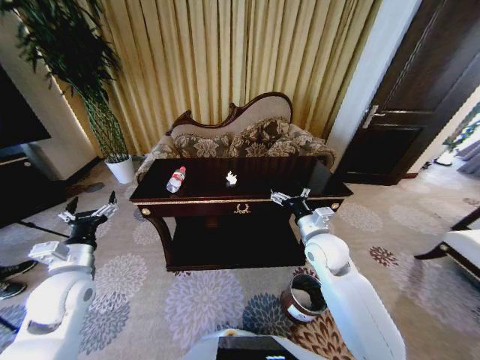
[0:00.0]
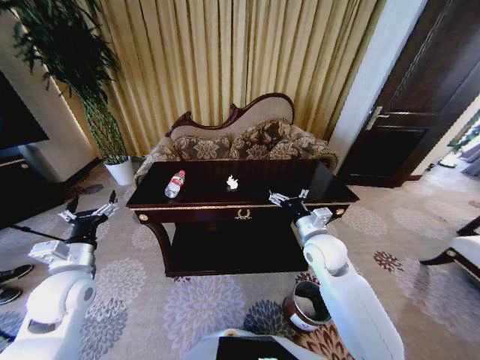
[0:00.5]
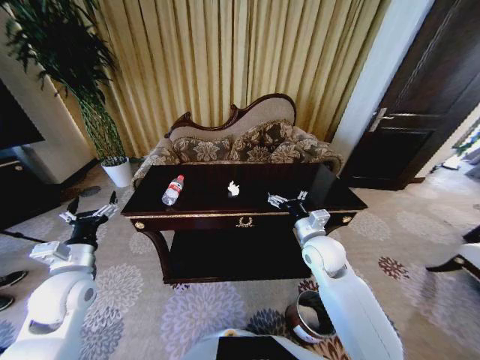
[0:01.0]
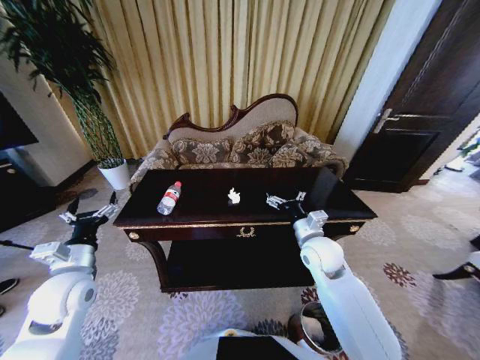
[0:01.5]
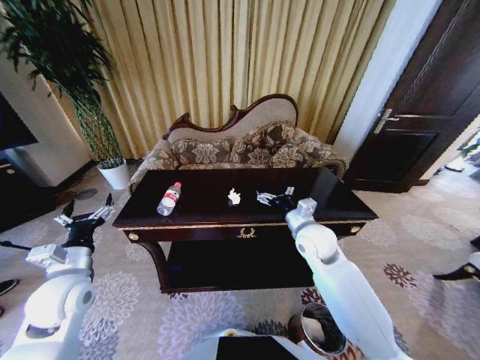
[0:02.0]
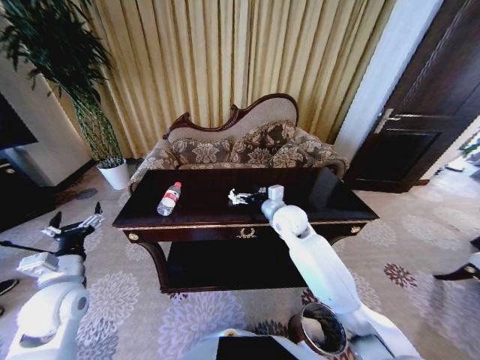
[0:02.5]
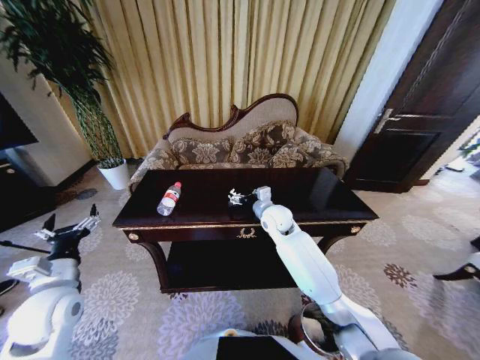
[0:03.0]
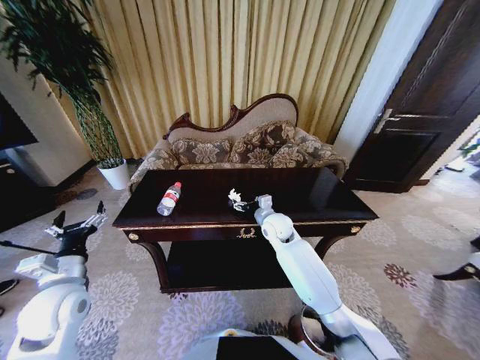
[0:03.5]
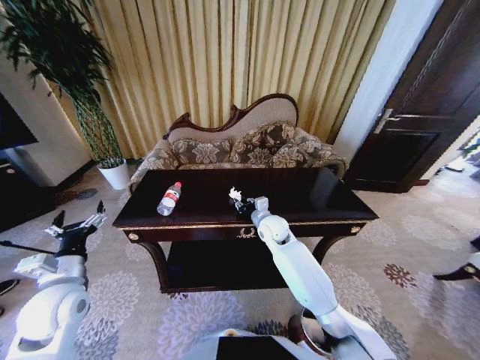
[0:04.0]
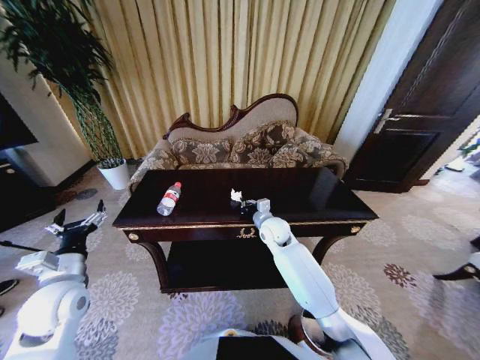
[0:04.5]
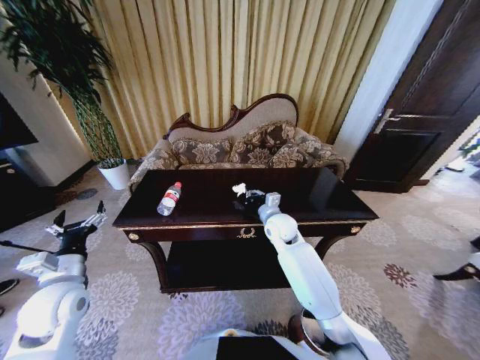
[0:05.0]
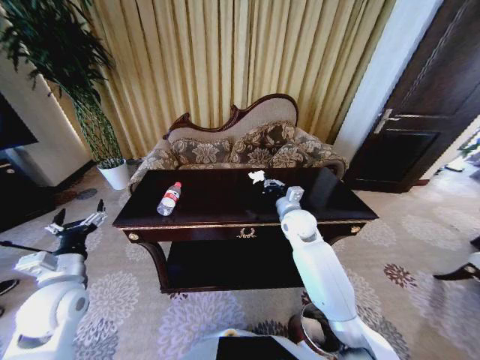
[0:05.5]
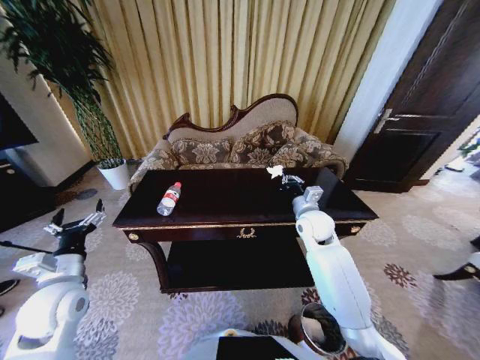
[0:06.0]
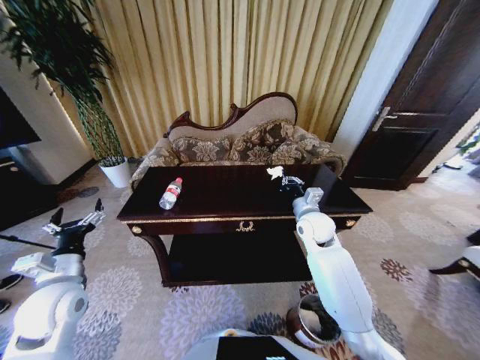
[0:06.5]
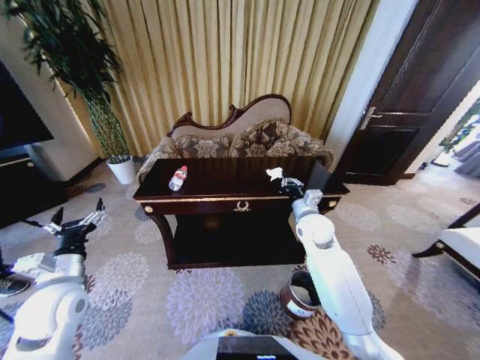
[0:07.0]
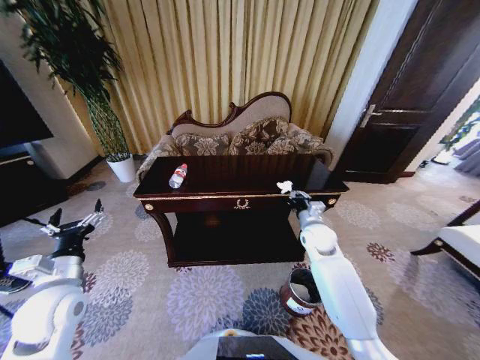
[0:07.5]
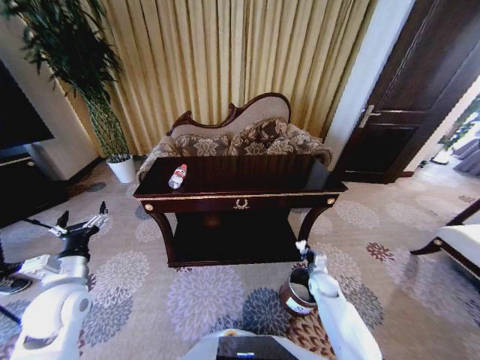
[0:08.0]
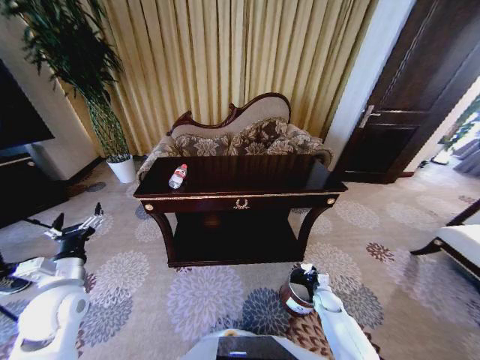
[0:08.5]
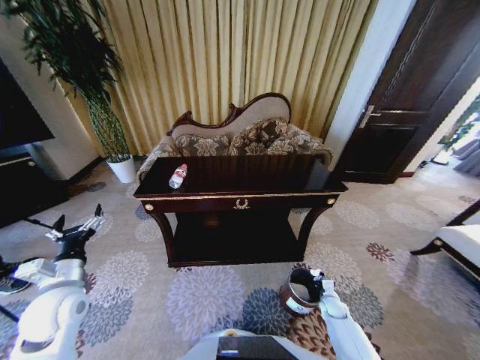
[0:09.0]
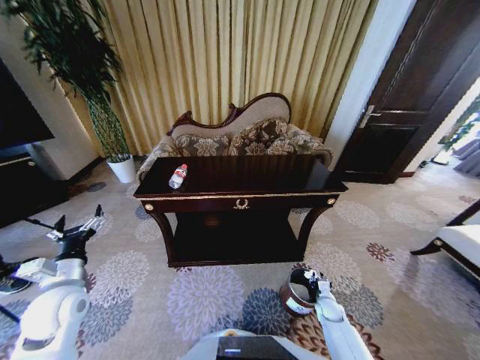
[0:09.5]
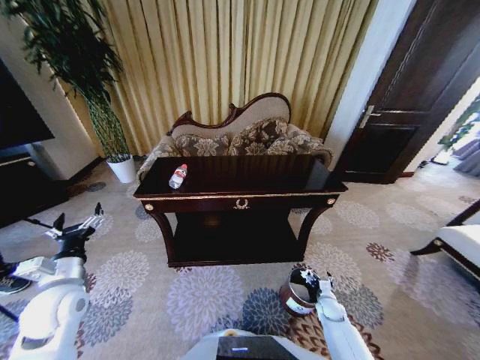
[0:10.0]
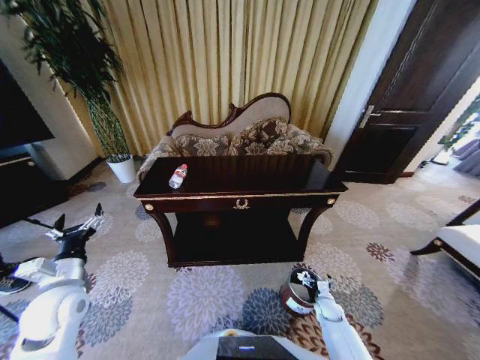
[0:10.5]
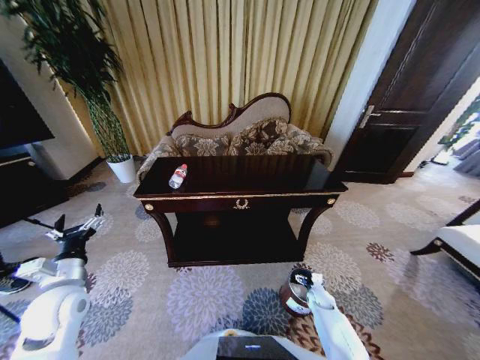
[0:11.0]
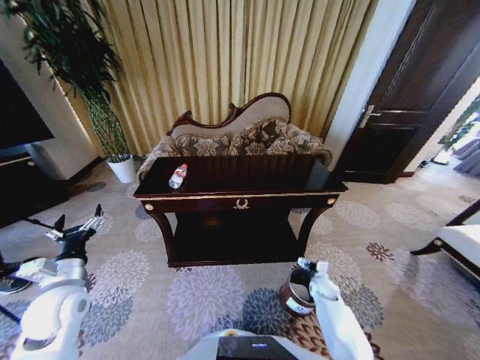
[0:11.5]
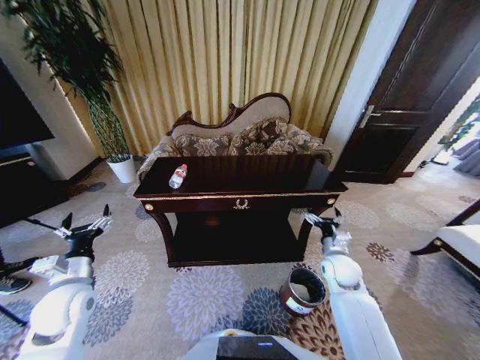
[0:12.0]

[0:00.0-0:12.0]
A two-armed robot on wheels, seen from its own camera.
Task of the whole recording: Move to the front of the table and place the trash on the table into the trash bin.
0:02.0 to 0:04.0: The right gripper moves forward, to the left and downward, approximately 15 cm, and closes up.
0:04.0 to 0:06.0: The right gripper shifts about 10 cm to the right and upward, and closes.
0:06.0 to 0:08.0: The right gripper heads downward and to the right, covering some 30 cm.
0:08.0 to 0:10.0: The right gripper heads downward and backward, covering some 10 cm, and opens up.
0:10.0 to 0:12.0: The right gripper goes roughly 25 cm upward.

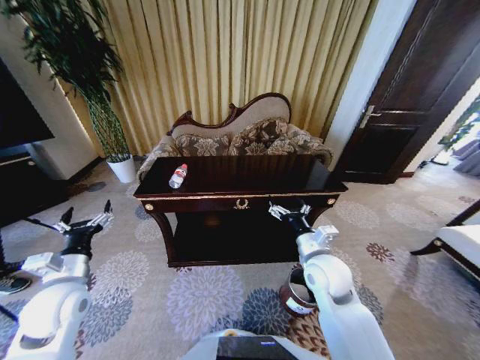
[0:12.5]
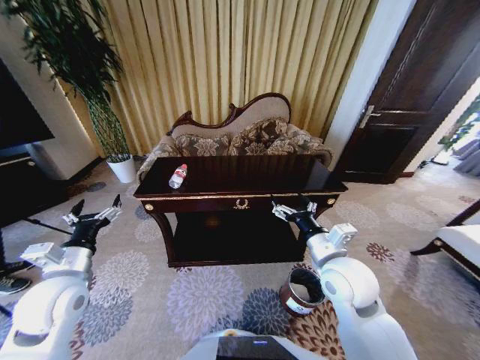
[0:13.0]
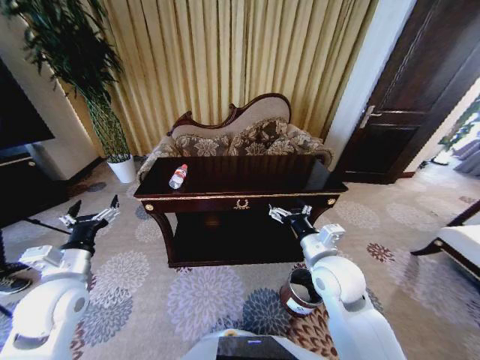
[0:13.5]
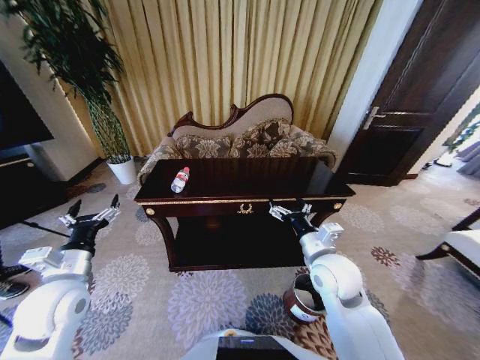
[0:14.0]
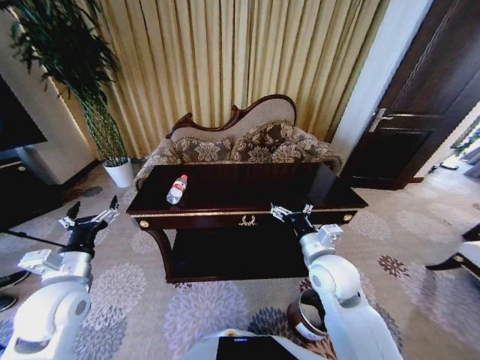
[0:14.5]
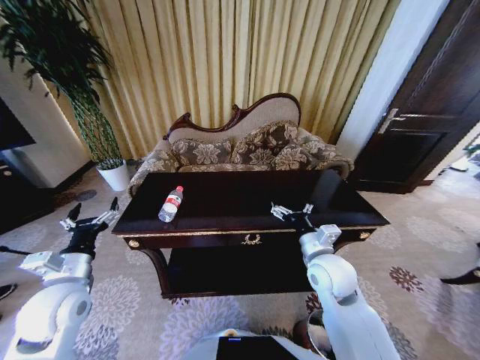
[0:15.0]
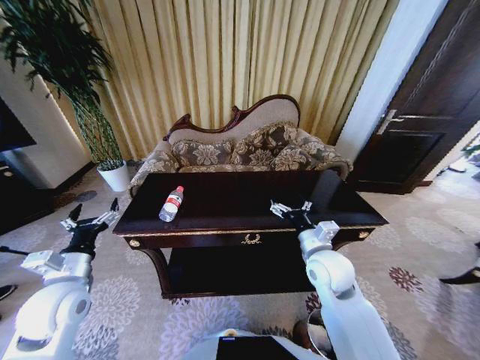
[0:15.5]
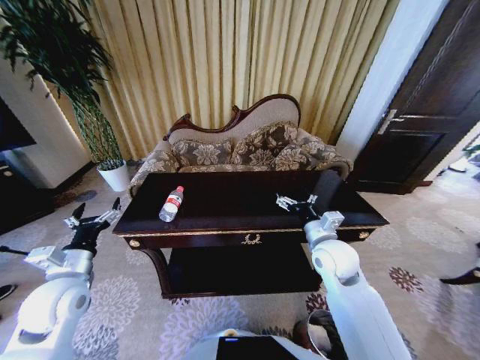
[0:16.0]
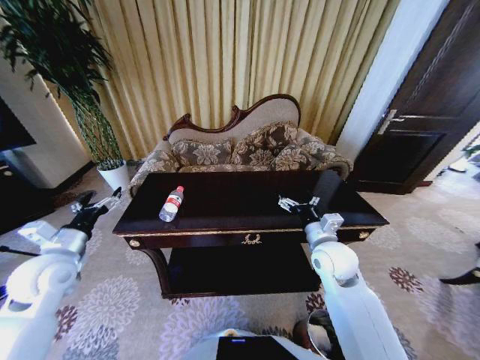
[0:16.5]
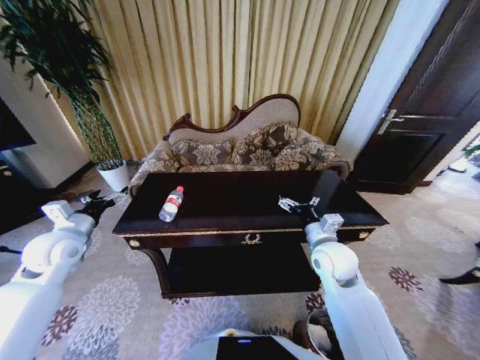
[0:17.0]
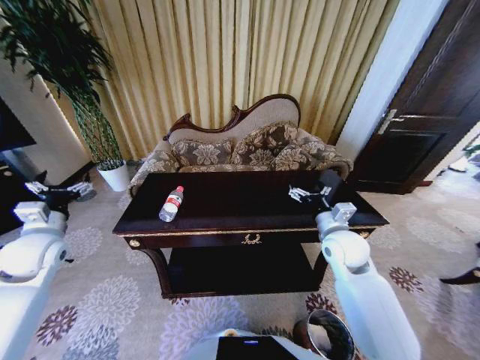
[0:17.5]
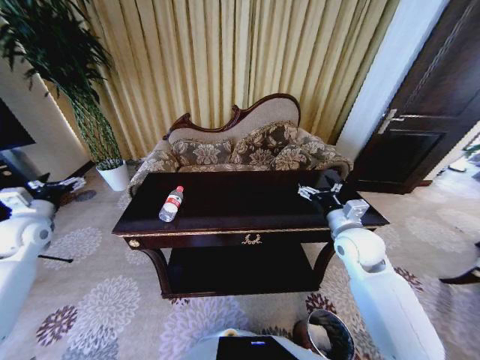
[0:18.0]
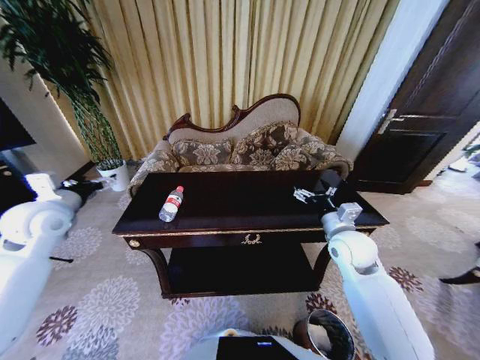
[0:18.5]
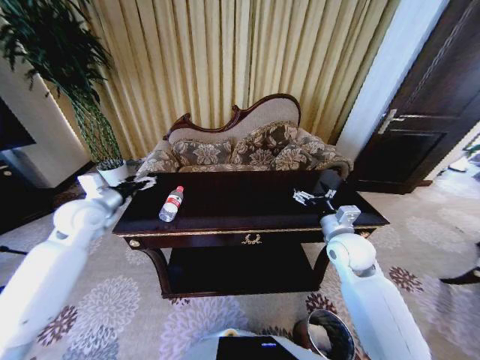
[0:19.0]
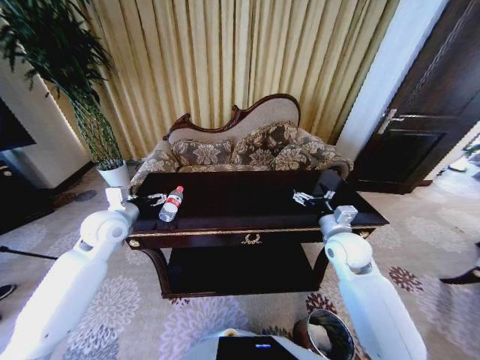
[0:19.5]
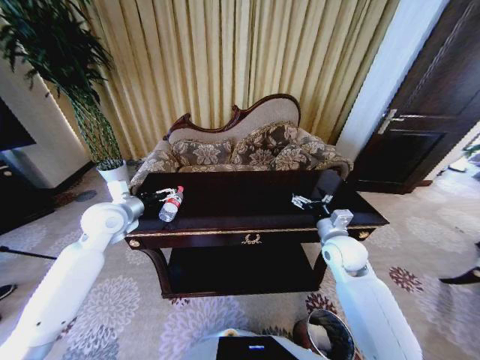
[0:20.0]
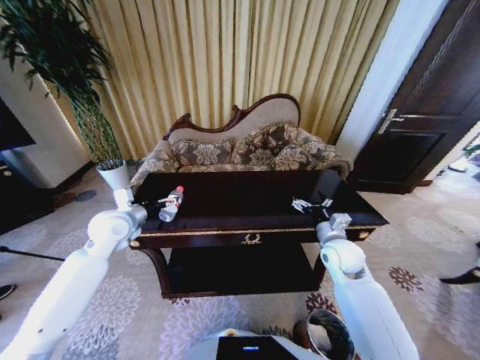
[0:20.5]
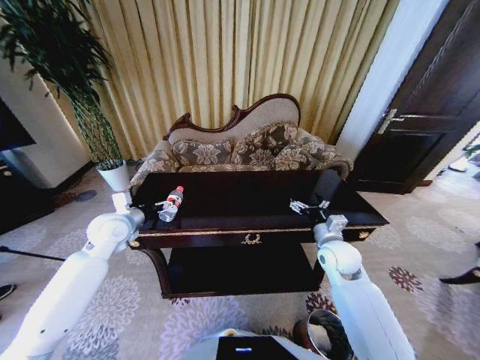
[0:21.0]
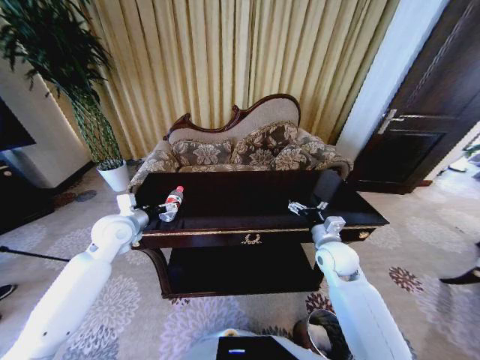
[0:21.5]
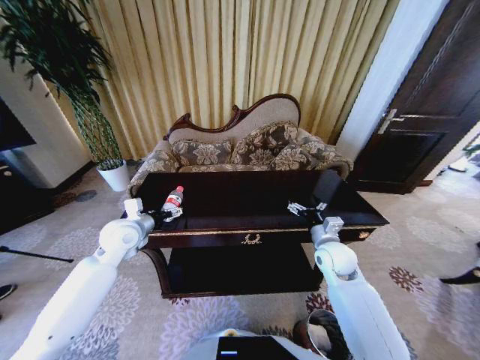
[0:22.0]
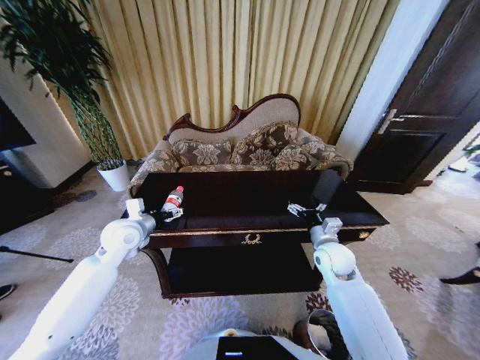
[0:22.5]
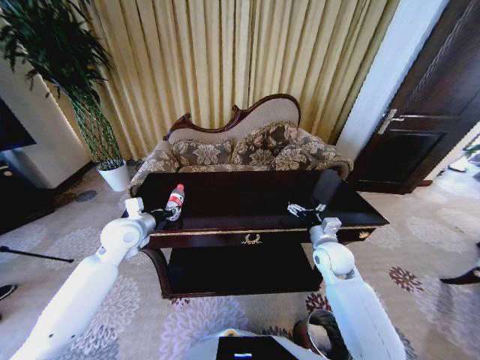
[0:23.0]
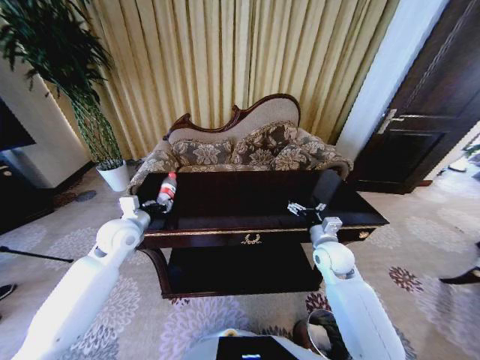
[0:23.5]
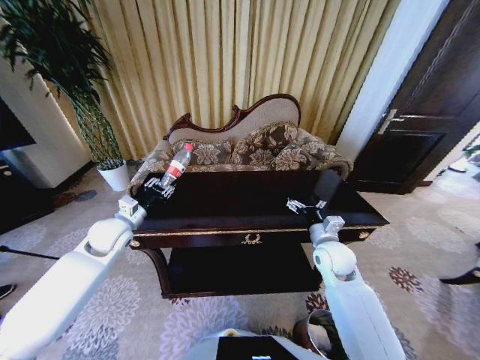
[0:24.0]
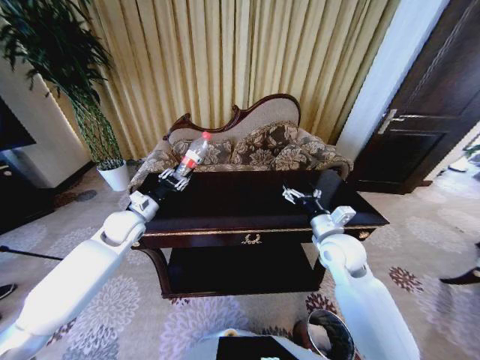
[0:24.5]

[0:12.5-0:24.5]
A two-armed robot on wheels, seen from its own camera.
Task of the whole recording: Move to the front of the table and place the trash on the table into the trash bin.
0:14.5 to 0:16.5: The left gripper shifts approximately 5 cm to the left and forward; the right gripper ends up some 5 cm from where it was.
0:16.5 to 0:18.5: The right gripper moves to the right, roughly 5 cm. The left gripper moves forward and upward, roughly 10 cm, and moves about 10 cm to the left and comes back.
0:18.5 to 0:20.5: The left gripper shifts roughly 15 cm to the right and downward.
0:20.5 to 0:22.5: There are only small adjustments of the grippers.
0:22.5 to 0:24.5: The left gripper closes its fingers, while the right gripper shifts about 5 cm upward.

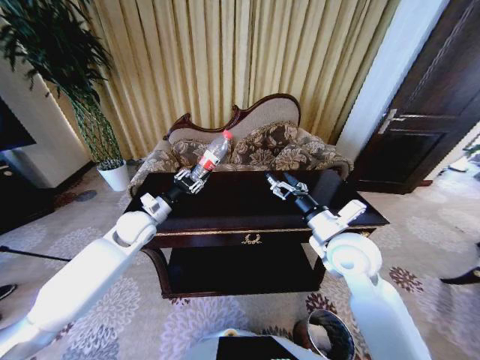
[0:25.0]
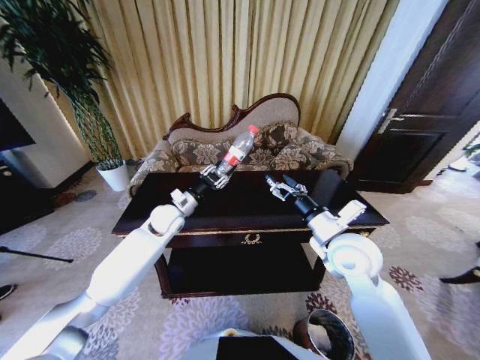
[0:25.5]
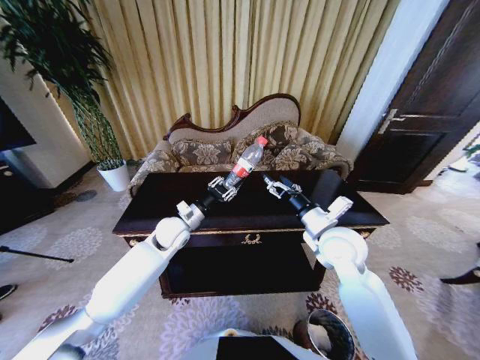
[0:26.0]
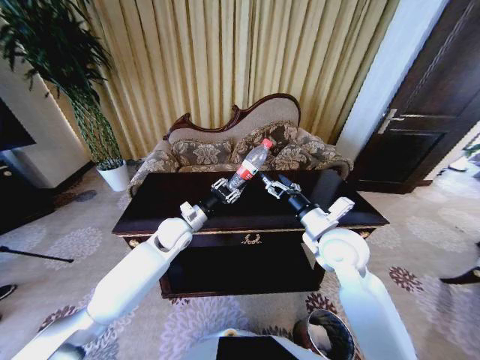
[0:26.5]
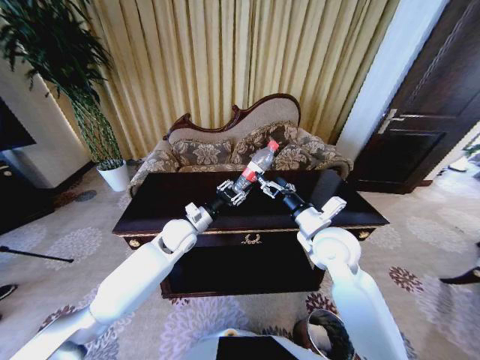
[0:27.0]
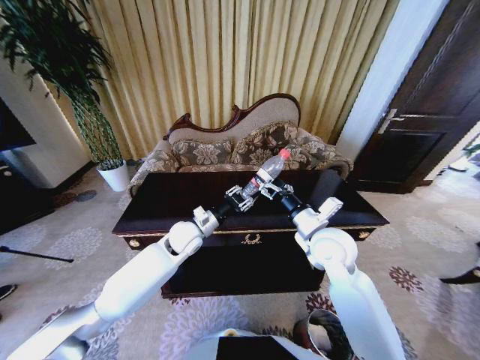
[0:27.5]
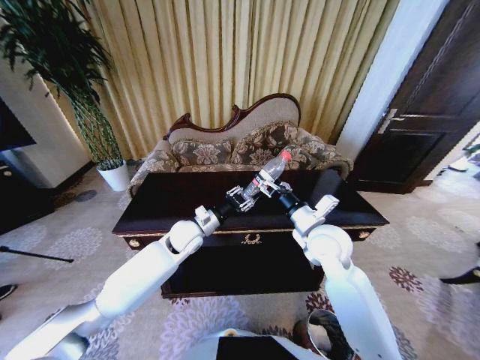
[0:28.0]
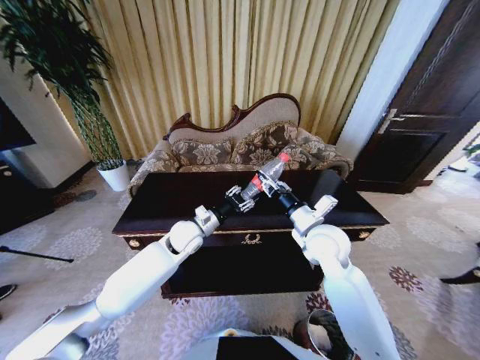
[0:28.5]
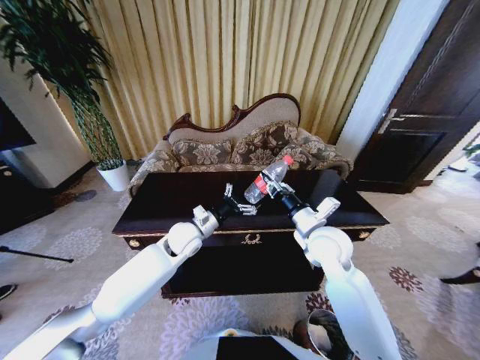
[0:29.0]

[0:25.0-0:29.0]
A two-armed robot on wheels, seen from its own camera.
Task of the whole recording: Move to the front of the table and place the trash on the table into the trash bin.
0:25.0 to 0:27.0: The left gripper moves to the right, roughly 10 cm.
0:27.0 to 0:29.0: The right gripper closes. Meanwhile the left gripper opens its fingers.
